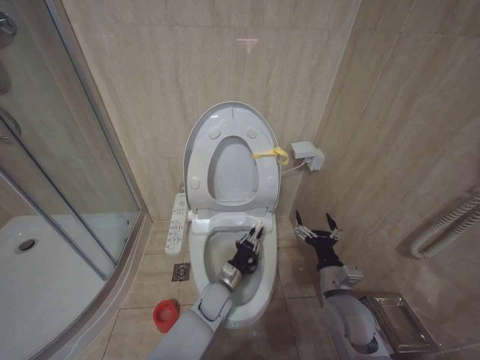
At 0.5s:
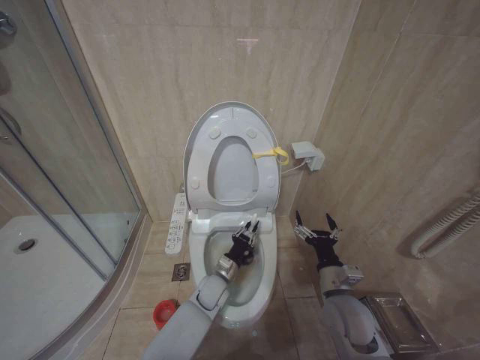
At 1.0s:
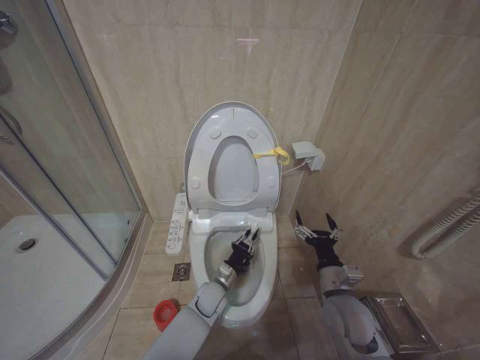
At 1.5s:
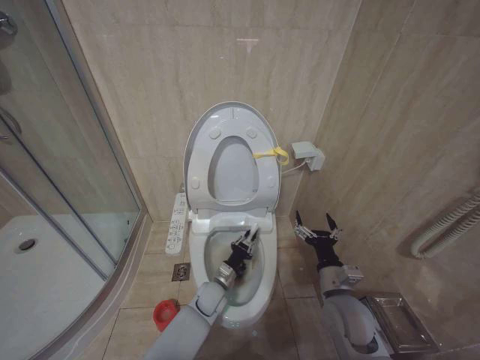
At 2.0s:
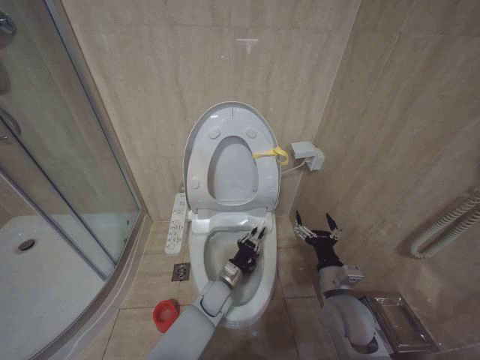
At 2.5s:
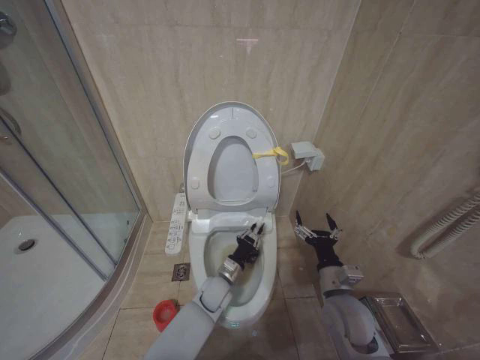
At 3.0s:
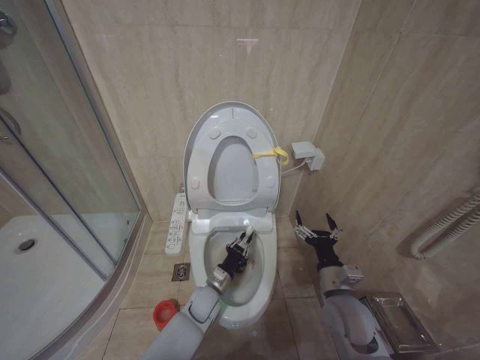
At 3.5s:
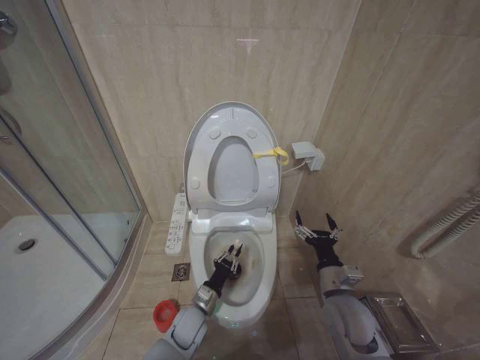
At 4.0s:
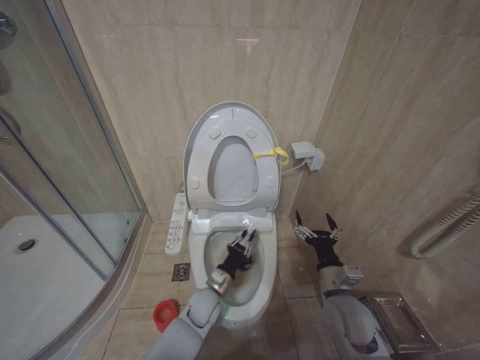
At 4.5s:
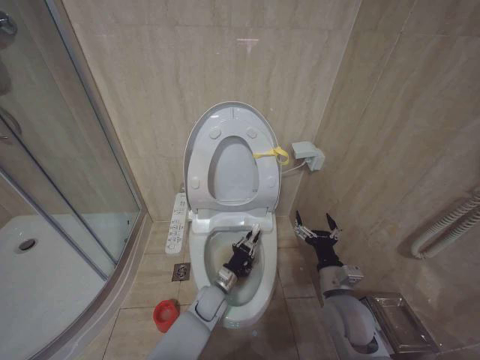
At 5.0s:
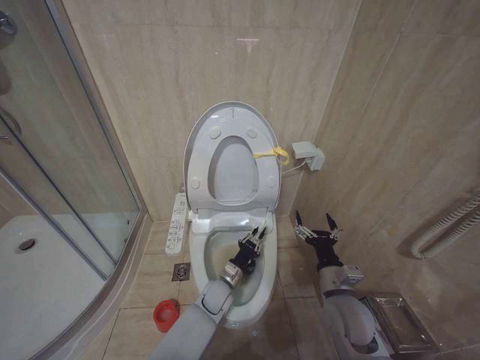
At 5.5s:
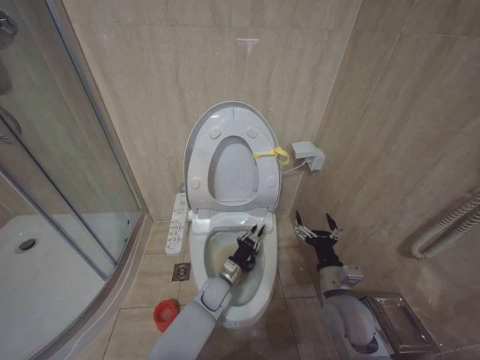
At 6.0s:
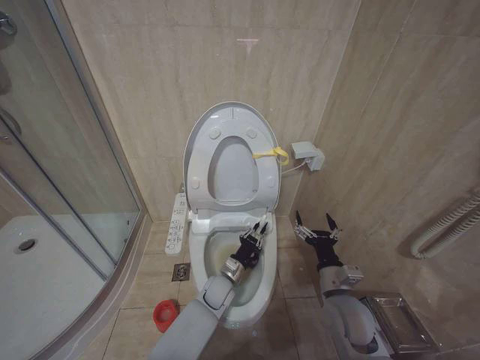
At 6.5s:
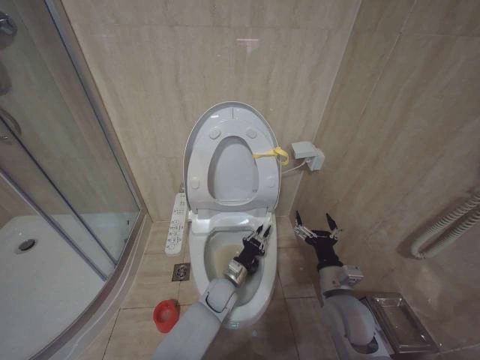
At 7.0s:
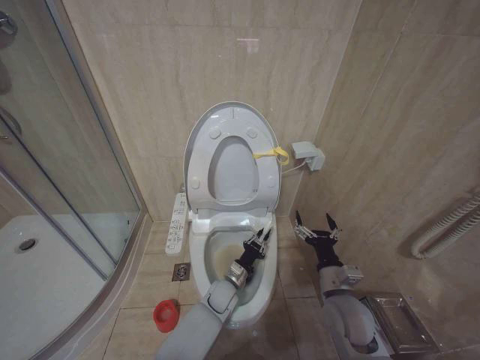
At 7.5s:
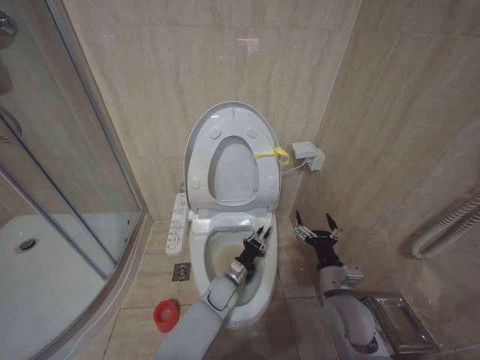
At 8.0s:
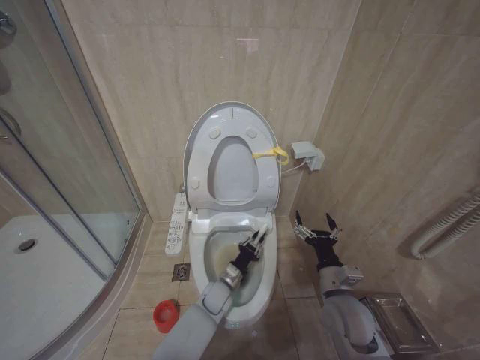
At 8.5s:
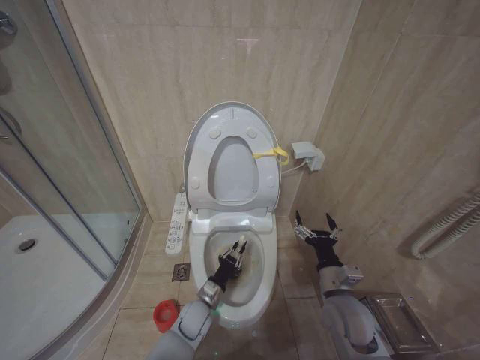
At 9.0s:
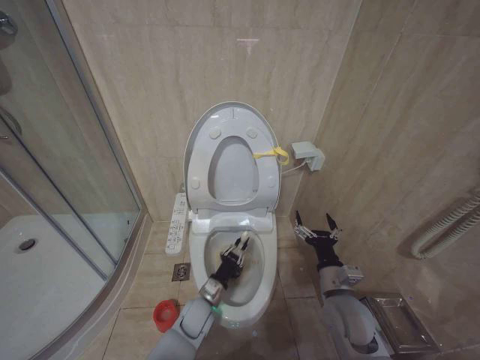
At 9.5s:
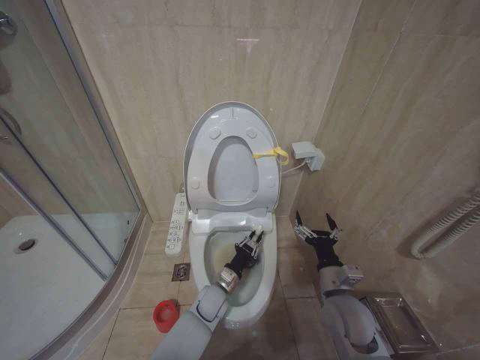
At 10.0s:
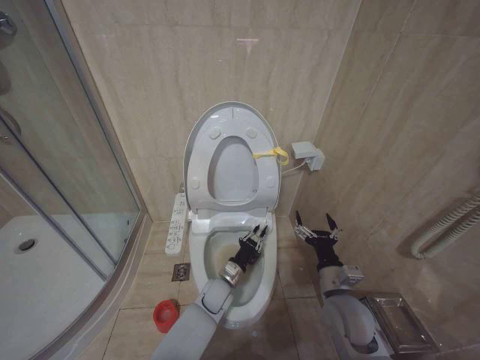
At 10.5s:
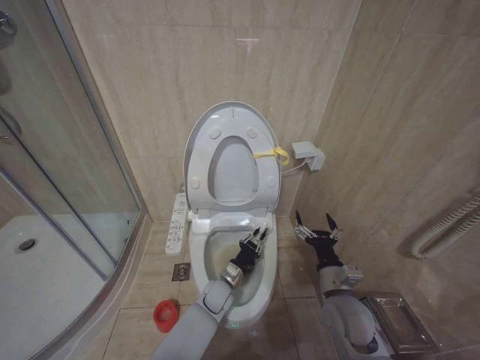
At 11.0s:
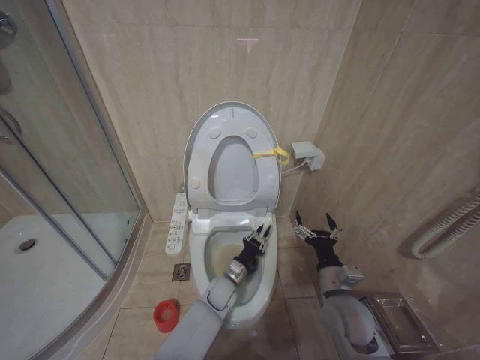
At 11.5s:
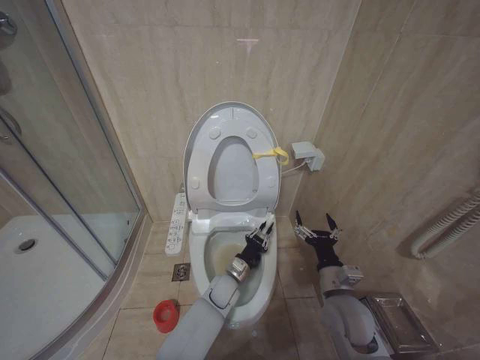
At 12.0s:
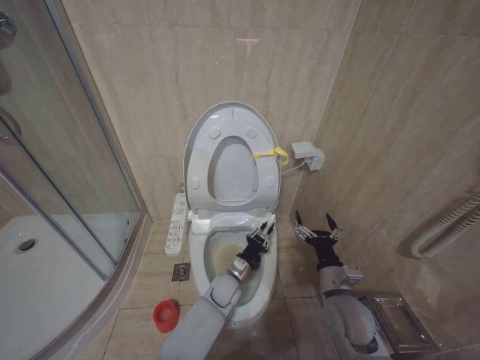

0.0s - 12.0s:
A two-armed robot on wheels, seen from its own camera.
Task of the whole recording: Open the toilet lid, clean the toilet bowl with a toilet brush, close the toilet lid, and flush.
2.0s - 4.0s: The left gripper moves to the left, about 5 cm.
4.0s - 6.0s: The left gripper heads to the right, covering some 5 cm.
10.0s - 12.0s: The grippers stay close to where they were, moving slightly.

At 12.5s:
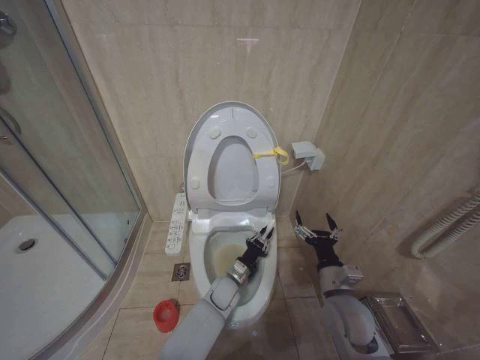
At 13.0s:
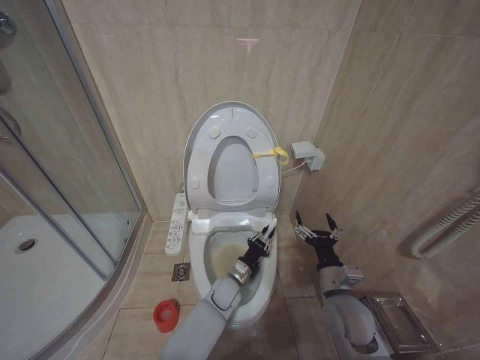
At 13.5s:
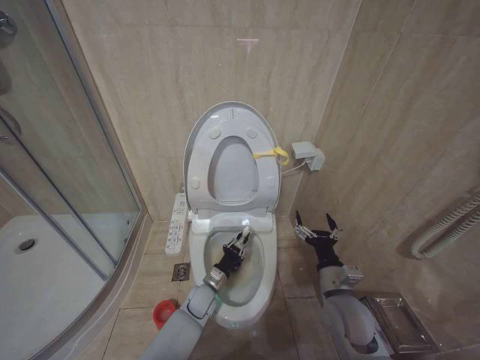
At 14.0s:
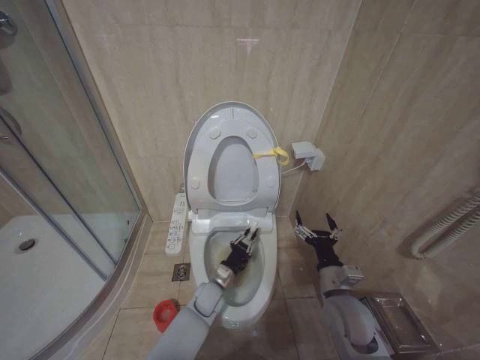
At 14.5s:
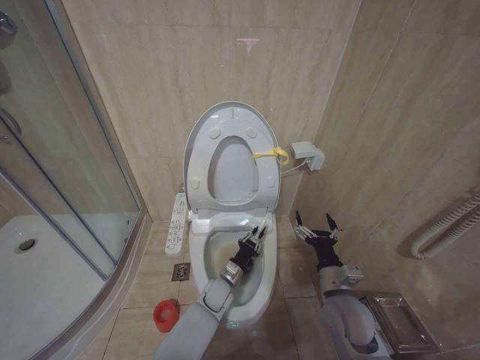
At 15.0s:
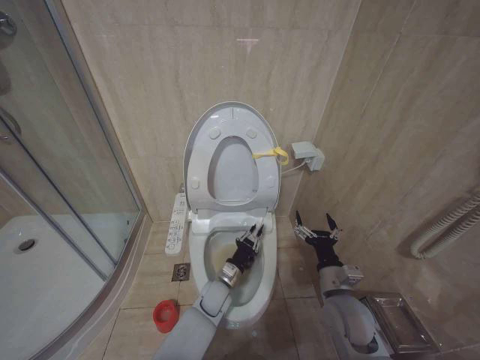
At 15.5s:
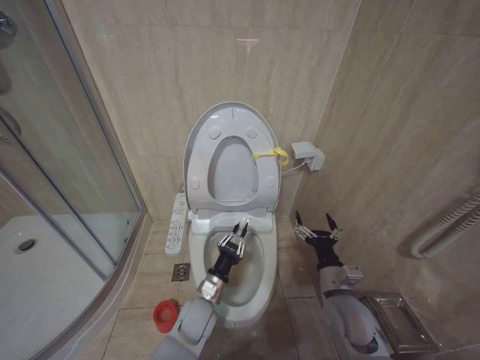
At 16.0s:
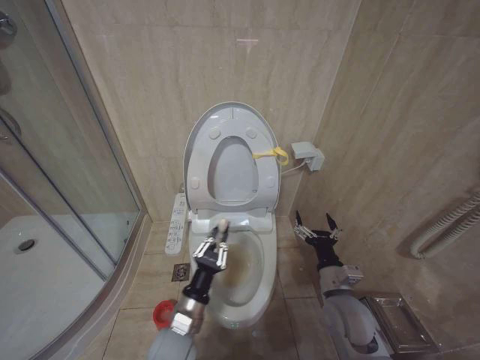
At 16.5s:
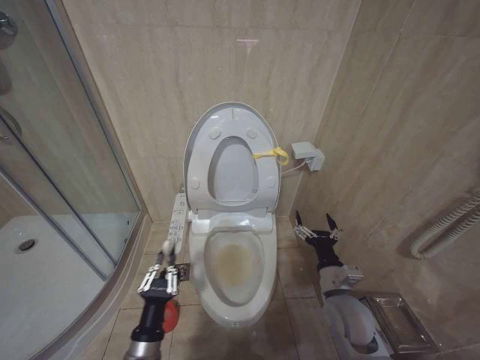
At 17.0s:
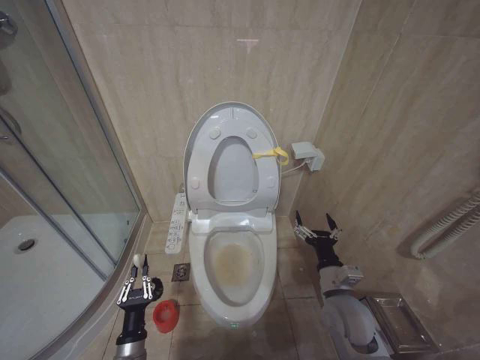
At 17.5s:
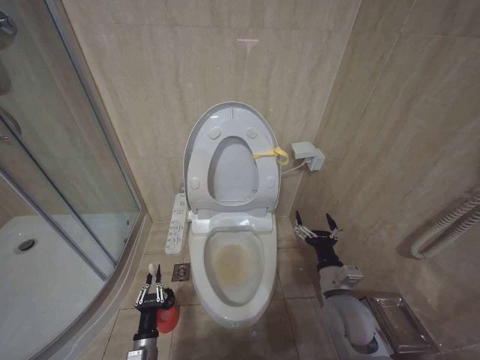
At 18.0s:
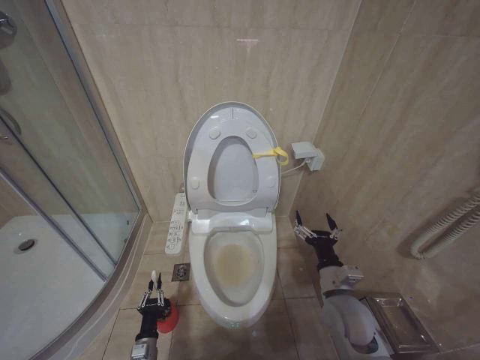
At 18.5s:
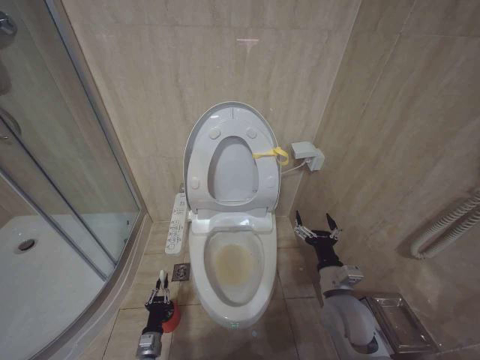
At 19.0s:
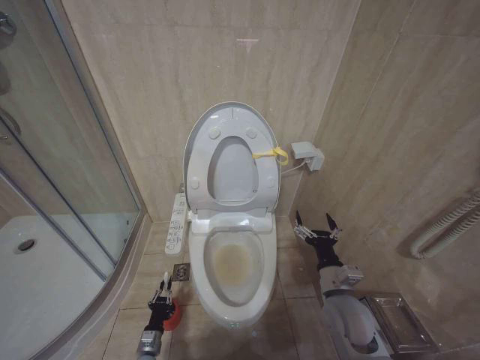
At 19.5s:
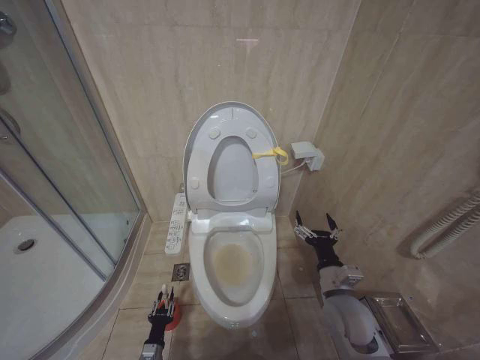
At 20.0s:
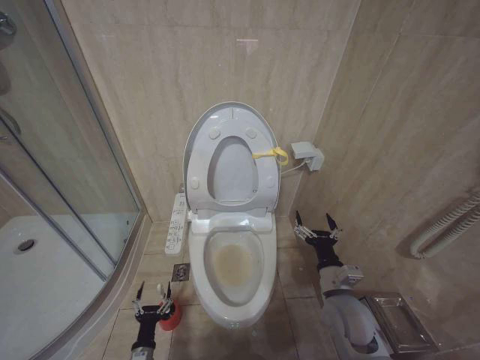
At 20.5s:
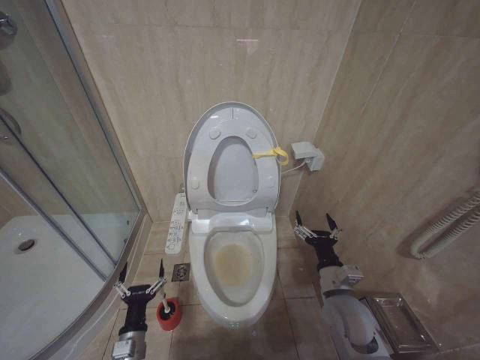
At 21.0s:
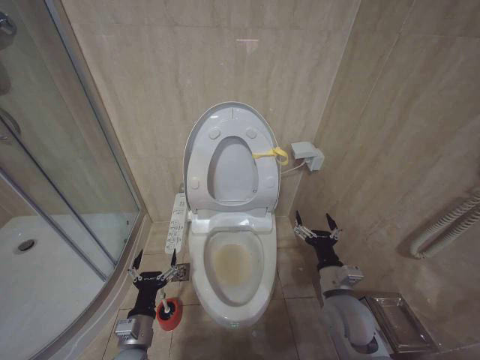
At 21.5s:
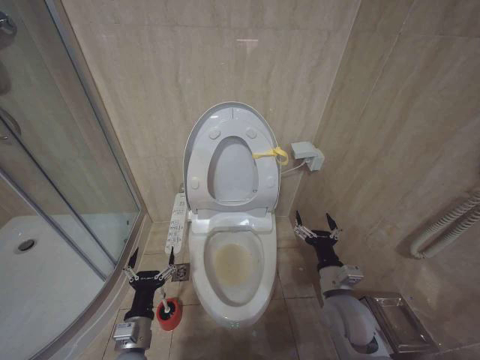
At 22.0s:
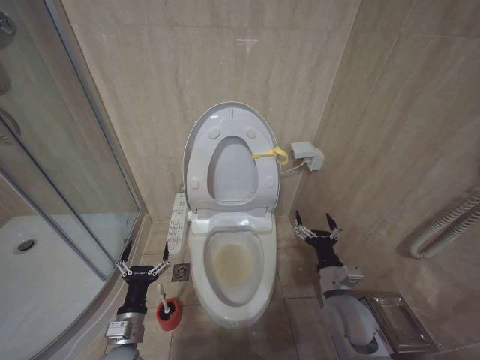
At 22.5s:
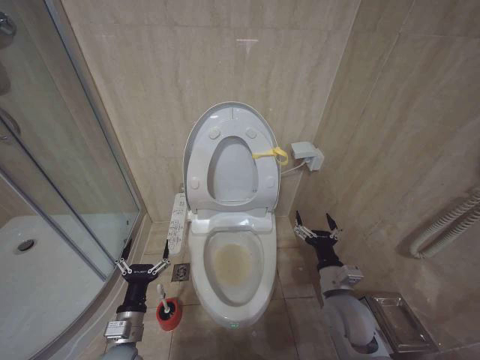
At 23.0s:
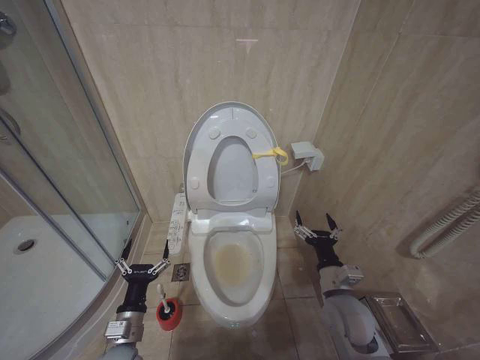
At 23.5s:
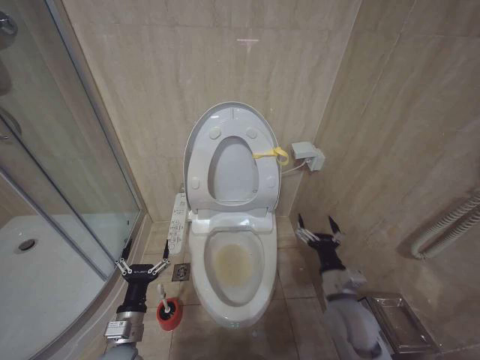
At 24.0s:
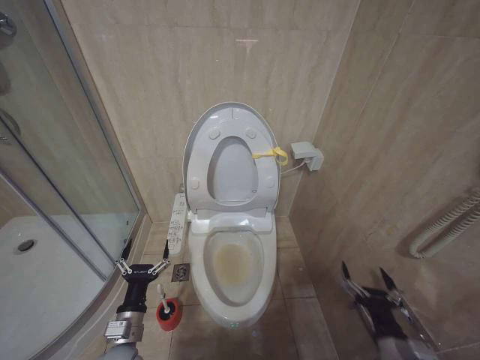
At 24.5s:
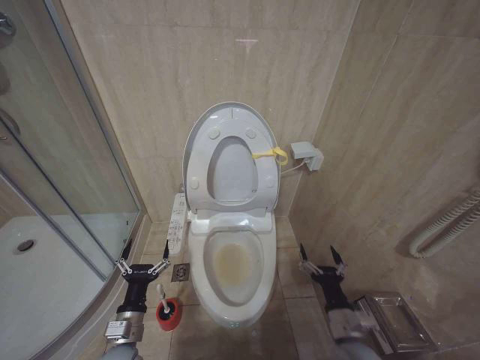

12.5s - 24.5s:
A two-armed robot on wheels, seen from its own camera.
Task of the whole recording: Open the toilet lid, clean the toilet bowl with a toilet brush, close the toilet lid, and flush.
14.5s - 16.5s: The left gripper moves backward, to the left and upward, roughly 30 cm.
16.5s - 18.5s: The left gripper heads downward, covering about 25 cm.
18.5s - 20.5s: The left gripper is displaced upward by about 15 cm, and opens.
20.5s - 22.5s: The left gripper goes some 10 cm upward.
22.5s - 24.5s: The right gripper shifts some 10 cm backward and downward.

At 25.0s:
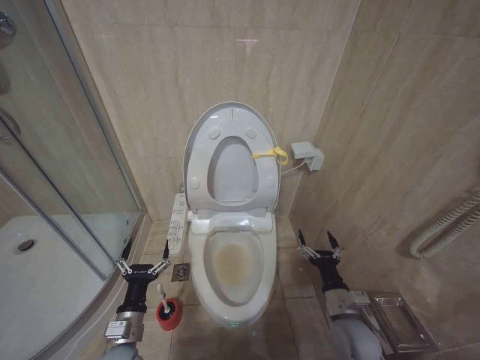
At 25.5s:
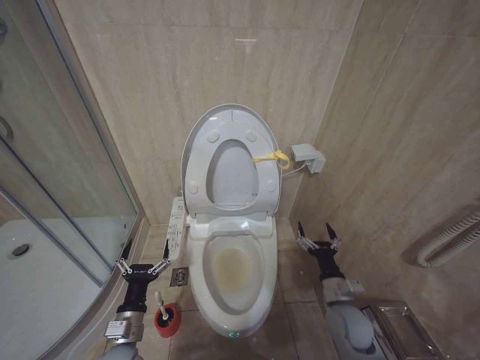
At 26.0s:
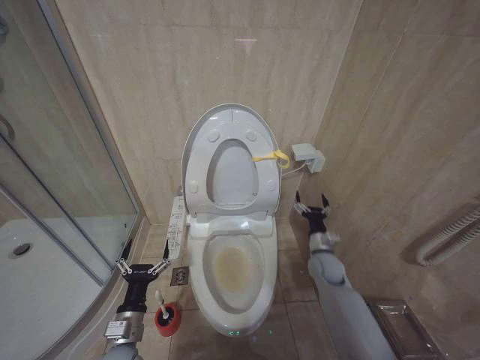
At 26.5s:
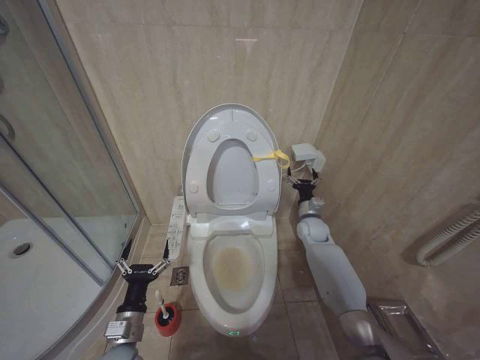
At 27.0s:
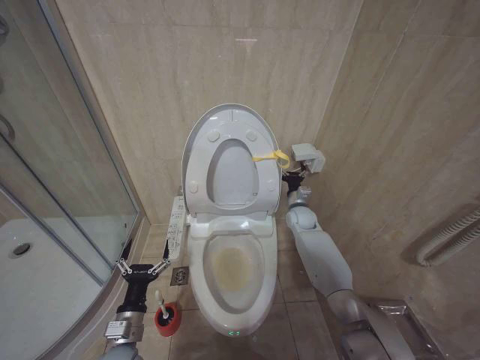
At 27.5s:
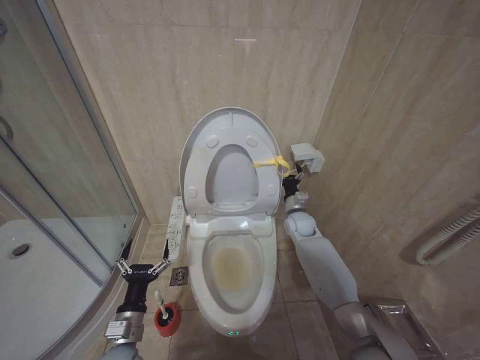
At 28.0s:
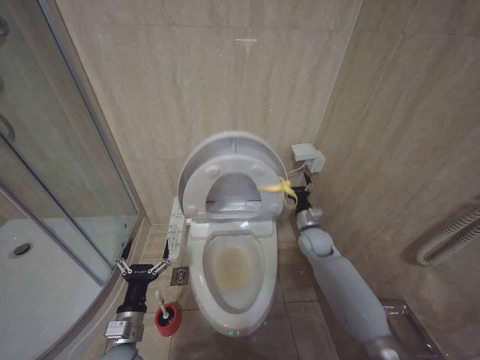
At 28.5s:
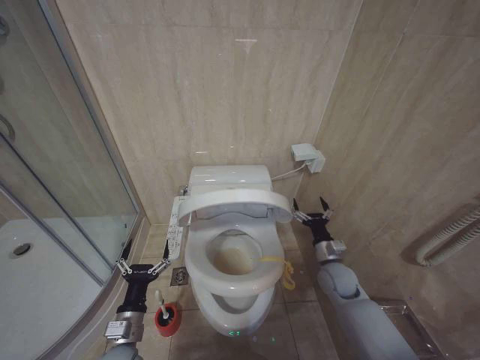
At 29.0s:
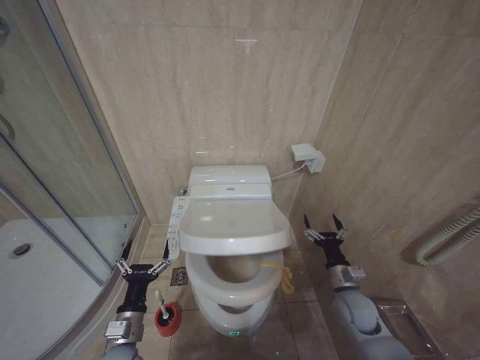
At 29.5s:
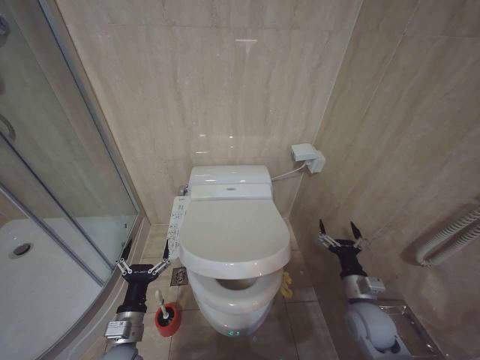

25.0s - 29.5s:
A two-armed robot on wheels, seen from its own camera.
Task of the whole recording: Open the toilet lid, clean the toilet bowl with a toilet brush, close the toilet lid, and flush.
25.0s - 27.0s: The right gripper is displaced forward by approximately 30 cm.
27.0s - 29.5s: The right gripper is displaced backward by roughly 30 cm.
